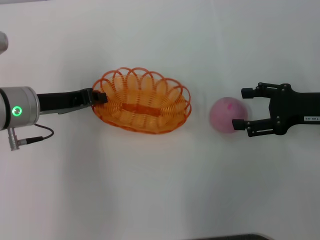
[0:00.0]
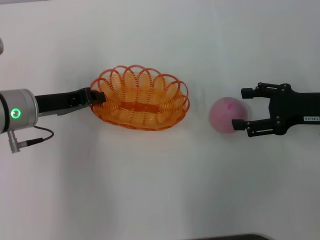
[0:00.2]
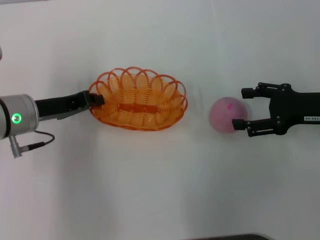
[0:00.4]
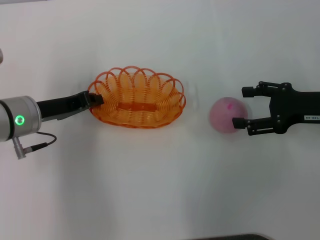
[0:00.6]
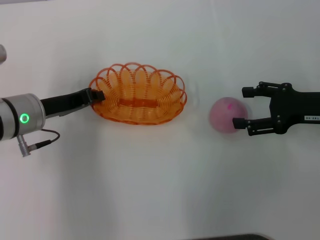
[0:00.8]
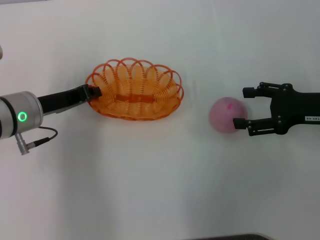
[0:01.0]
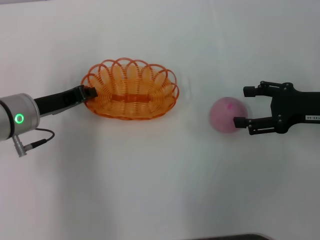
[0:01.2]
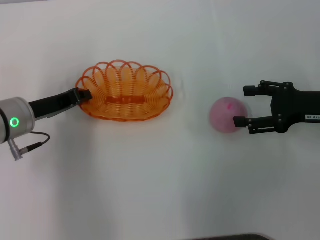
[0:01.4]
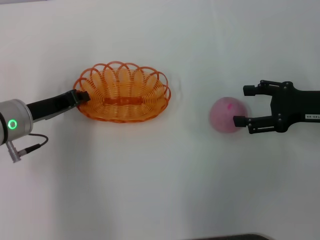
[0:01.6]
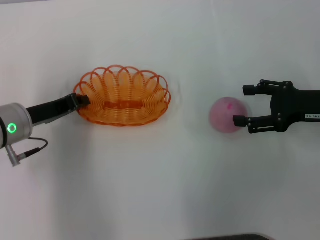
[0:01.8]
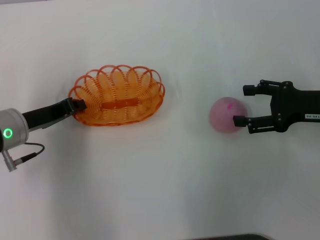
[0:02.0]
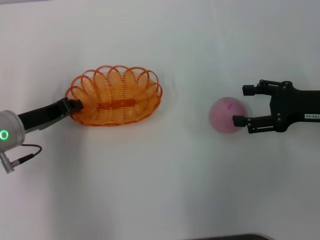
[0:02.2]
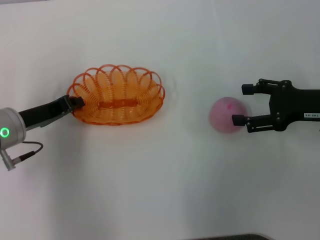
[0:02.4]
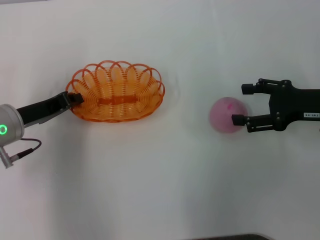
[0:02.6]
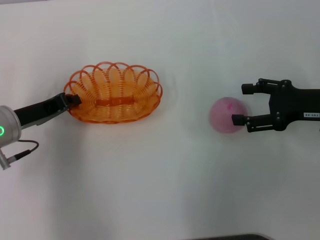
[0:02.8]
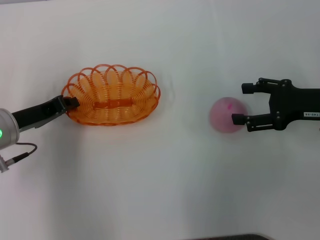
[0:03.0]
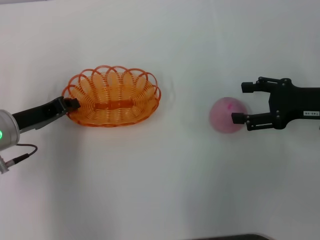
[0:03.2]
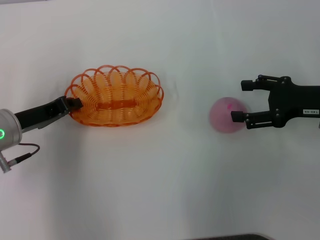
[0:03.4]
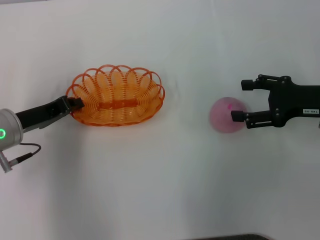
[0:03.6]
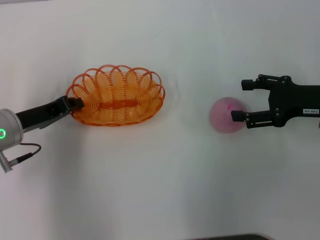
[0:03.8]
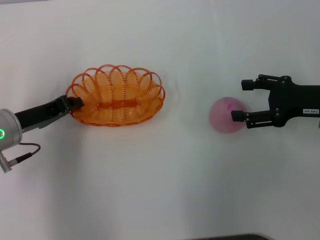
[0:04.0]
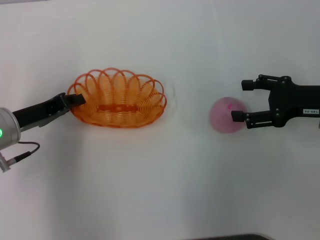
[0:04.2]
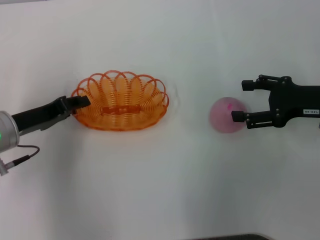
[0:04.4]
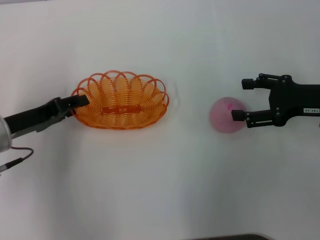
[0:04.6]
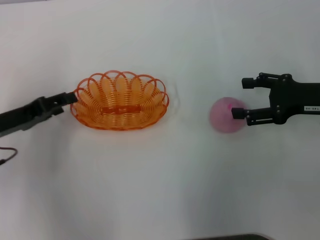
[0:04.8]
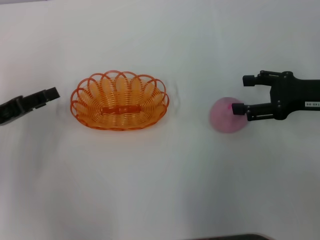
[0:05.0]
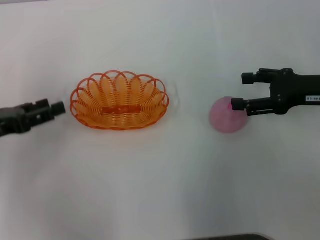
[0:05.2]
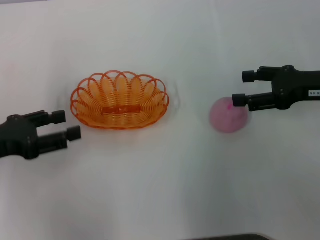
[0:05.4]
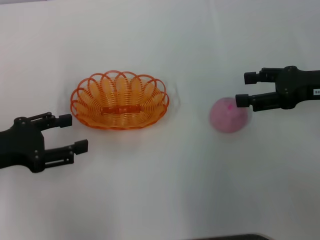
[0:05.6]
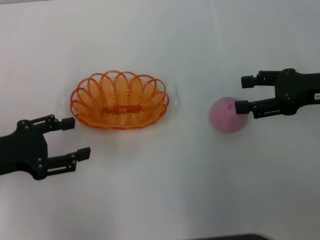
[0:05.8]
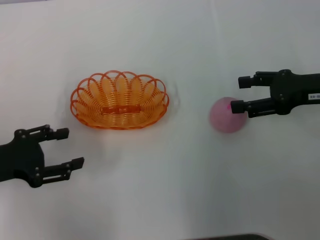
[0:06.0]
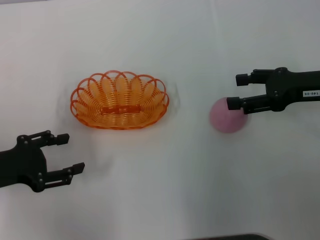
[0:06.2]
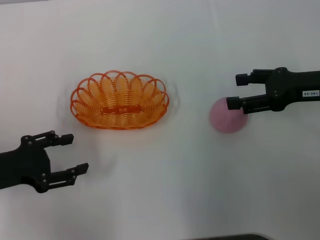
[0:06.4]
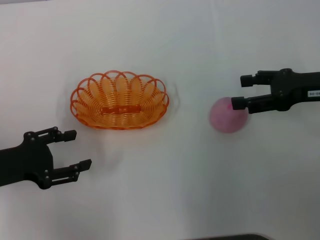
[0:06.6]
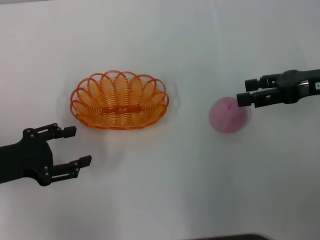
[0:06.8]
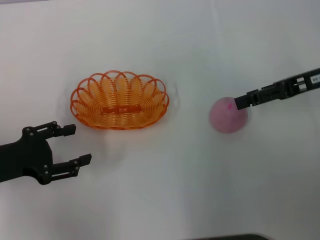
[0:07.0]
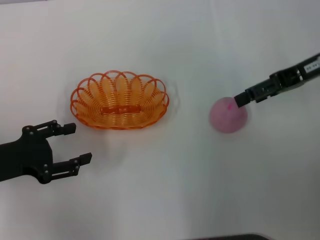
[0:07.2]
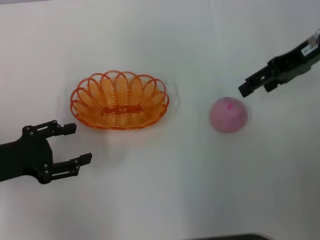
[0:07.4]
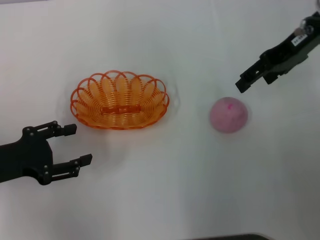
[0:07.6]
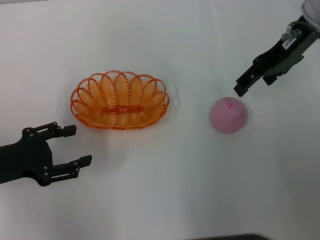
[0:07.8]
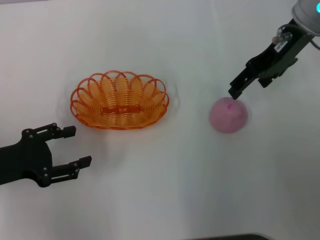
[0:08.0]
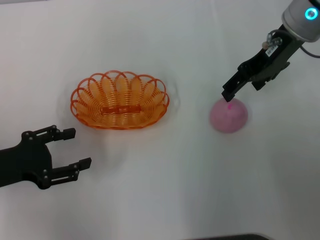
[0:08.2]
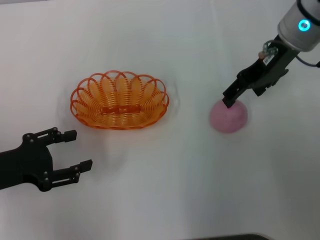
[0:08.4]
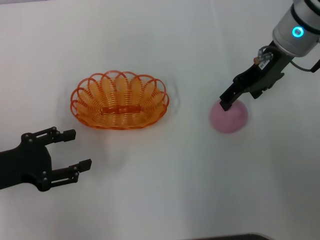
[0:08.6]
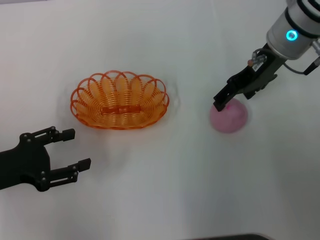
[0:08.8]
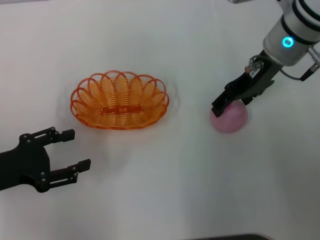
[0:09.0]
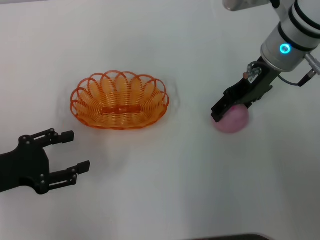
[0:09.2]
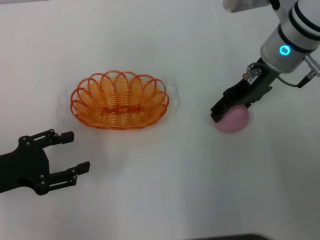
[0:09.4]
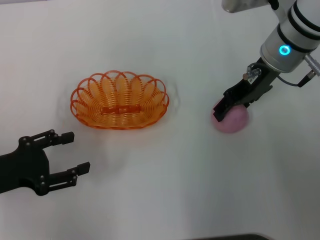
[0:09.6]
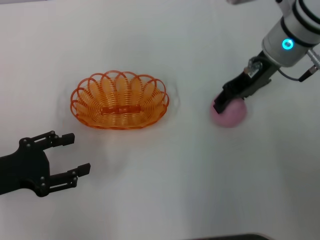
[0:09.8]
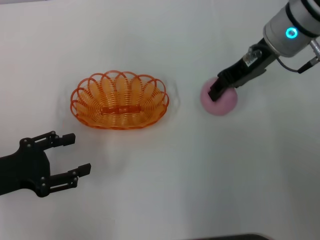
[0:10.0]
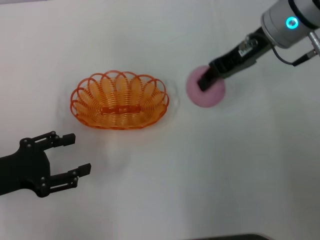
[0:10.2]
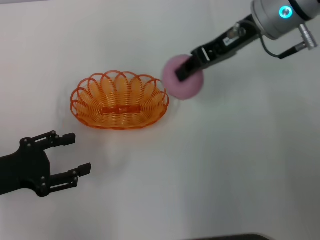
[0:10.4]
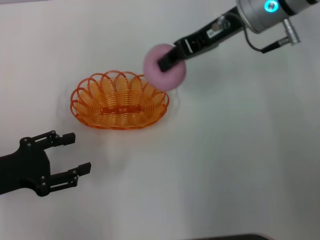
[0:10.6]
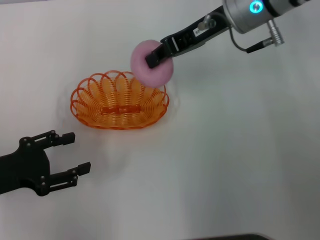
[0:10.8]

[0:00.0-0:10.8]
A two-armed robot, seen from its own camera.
Step, 0.0 to 4.8 s: Place the basket in the center of view with the left gripper.
Step, 5.0 to 10.0 s: Pick up the peach with the right gripper.
0.0 to 4.6 s: The grippers make only small movements.
4.6 to 6.2 s: The left gripper moves backward, approximately 5 cm, and opens.
6.2 to 7.8 s: The right gripper travels upward, forward and to the left by some 15 cm.
7.8 to 9.2 s: The right gripper is displaced downward by approximately 5 cm.
9.2 to 10.8 s: The right gripper travels upward by some 5 cm, and closes its fingers.

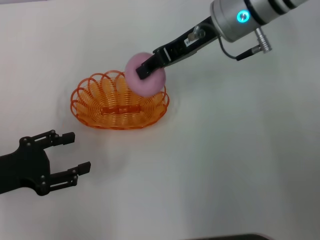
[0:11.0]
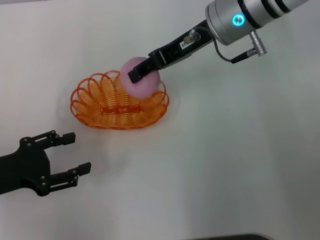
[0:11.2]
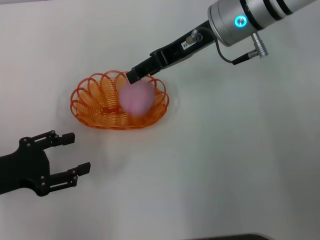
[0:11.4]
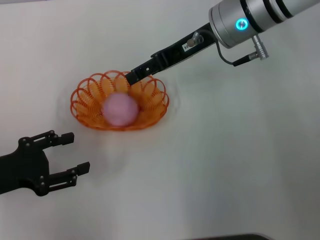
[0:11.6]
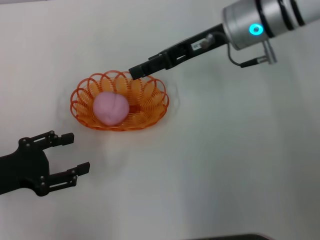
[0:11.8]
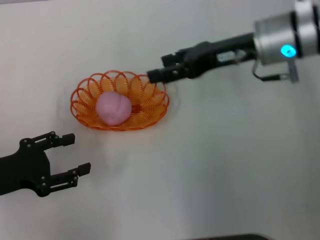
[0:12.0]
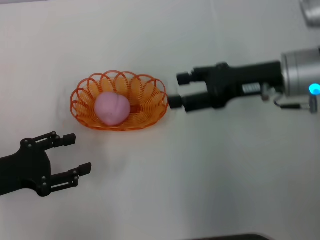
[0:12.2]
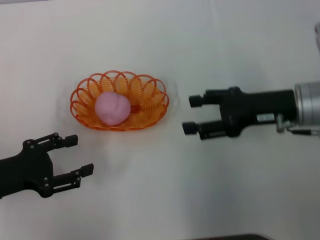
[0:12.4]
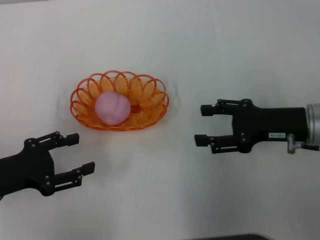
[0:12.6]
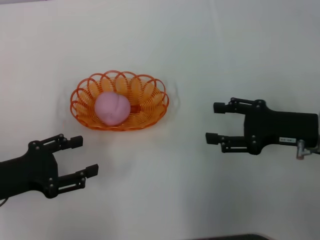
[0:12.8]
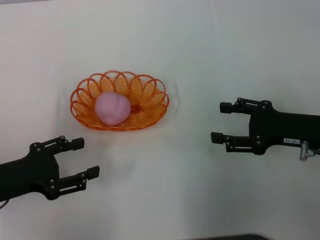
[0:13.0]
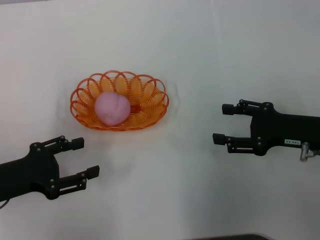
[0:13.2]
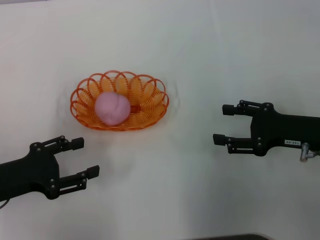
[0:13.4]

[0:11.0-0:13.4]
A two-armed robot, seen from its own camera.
Step, 11.0 to 12.0 s: Place the peach into the basket with the right gripper.
11.0 to 12.2 s: The right gripper is displaced to the right, backward and downward by about 15 cm, and opens up.
12.2 to 13.4 s: The right gripper is displaced backward, downward and to the right by roughly 10 cm.

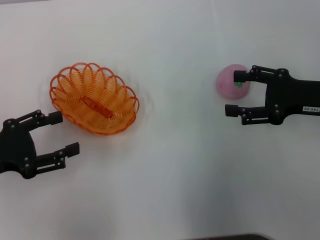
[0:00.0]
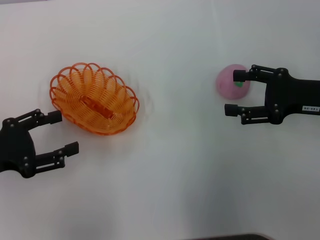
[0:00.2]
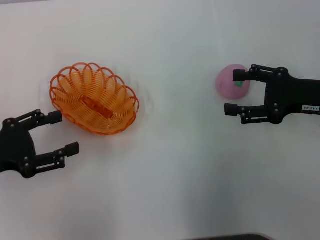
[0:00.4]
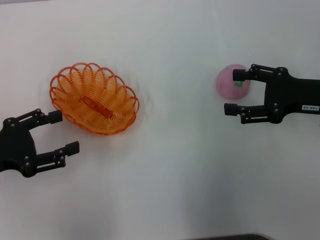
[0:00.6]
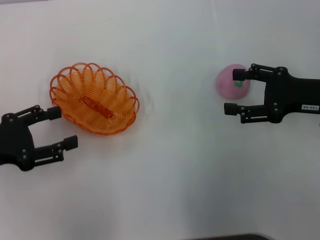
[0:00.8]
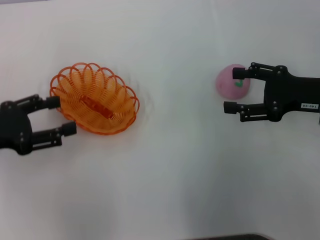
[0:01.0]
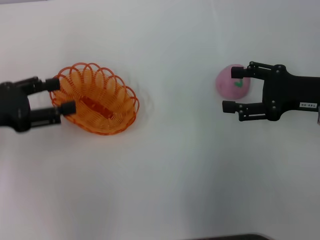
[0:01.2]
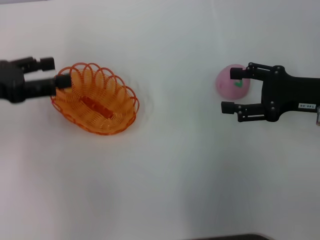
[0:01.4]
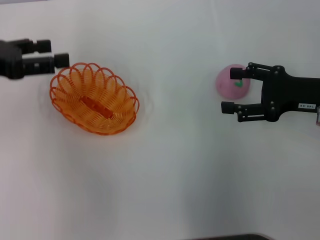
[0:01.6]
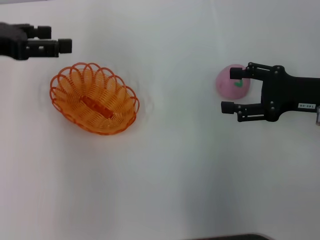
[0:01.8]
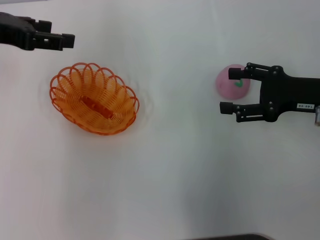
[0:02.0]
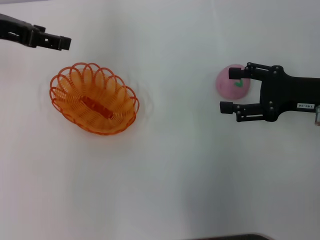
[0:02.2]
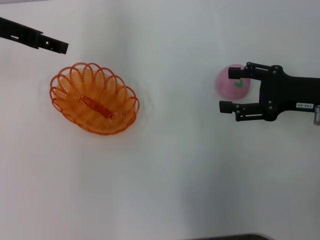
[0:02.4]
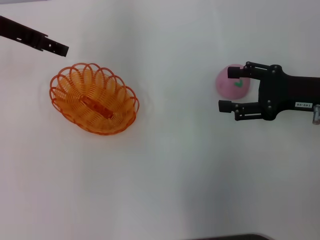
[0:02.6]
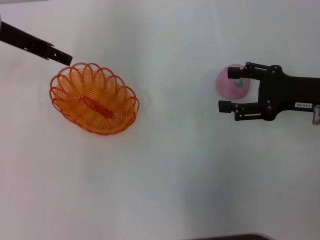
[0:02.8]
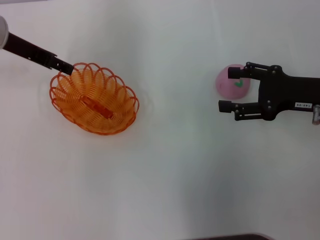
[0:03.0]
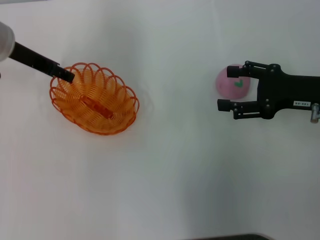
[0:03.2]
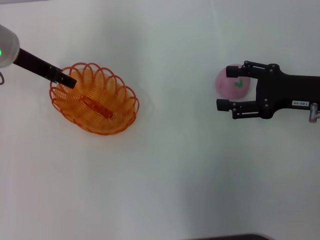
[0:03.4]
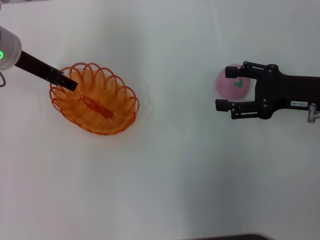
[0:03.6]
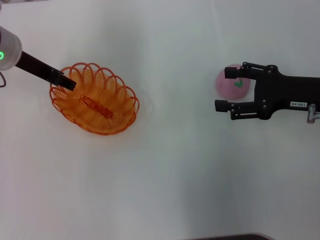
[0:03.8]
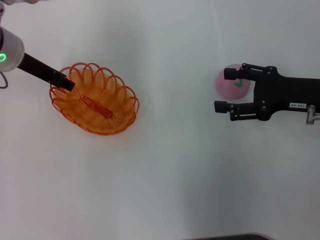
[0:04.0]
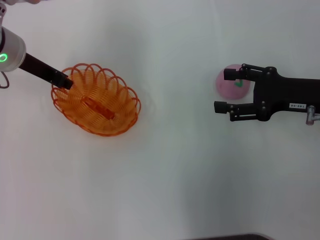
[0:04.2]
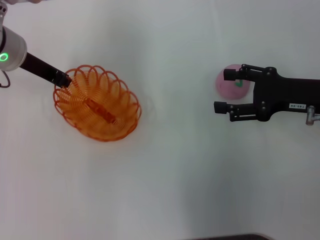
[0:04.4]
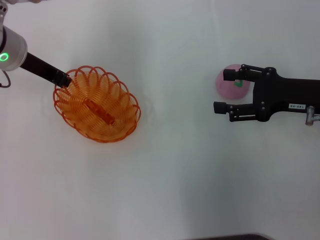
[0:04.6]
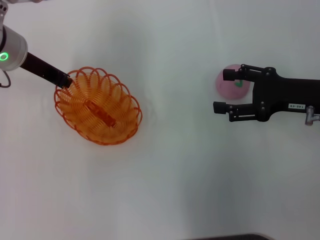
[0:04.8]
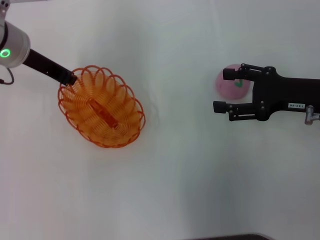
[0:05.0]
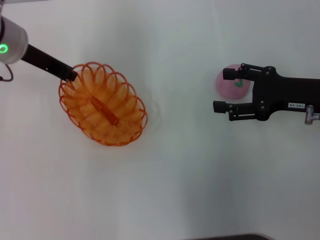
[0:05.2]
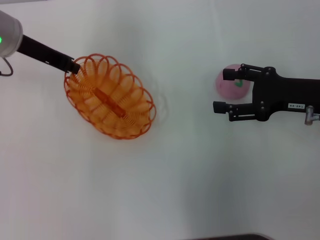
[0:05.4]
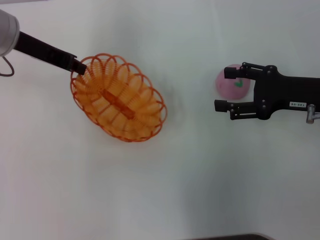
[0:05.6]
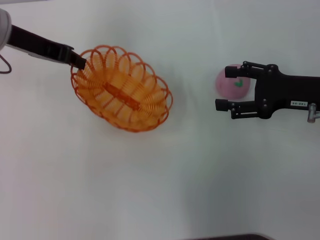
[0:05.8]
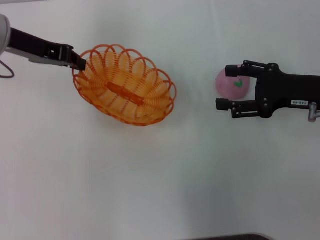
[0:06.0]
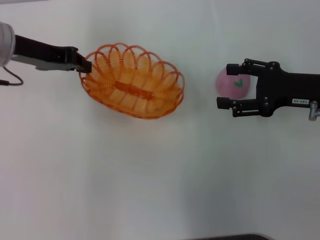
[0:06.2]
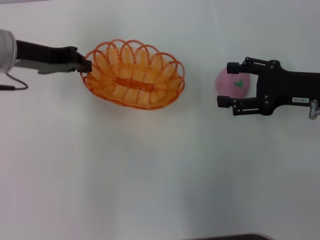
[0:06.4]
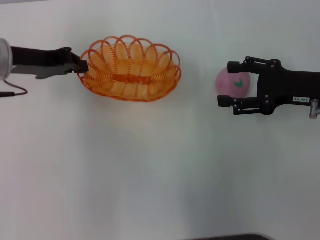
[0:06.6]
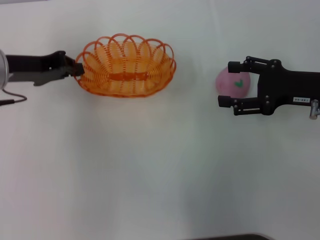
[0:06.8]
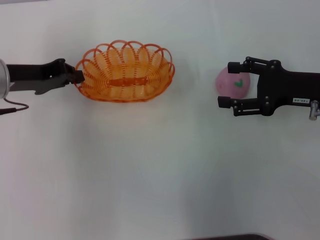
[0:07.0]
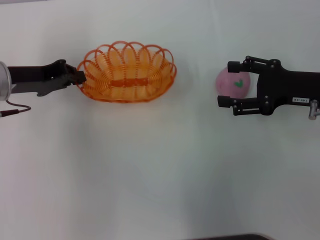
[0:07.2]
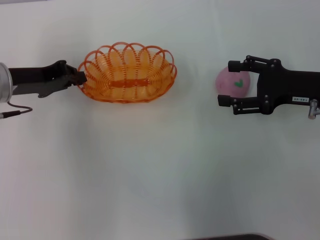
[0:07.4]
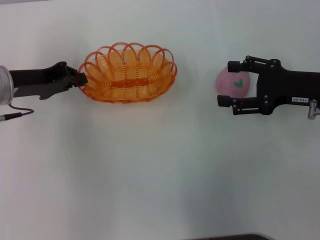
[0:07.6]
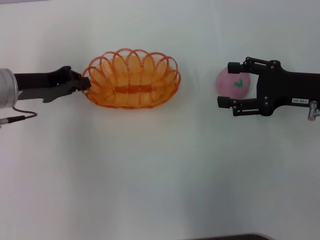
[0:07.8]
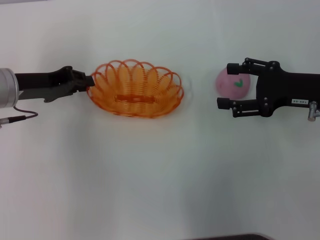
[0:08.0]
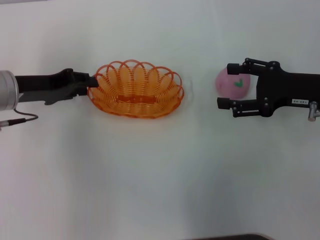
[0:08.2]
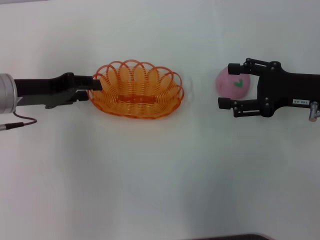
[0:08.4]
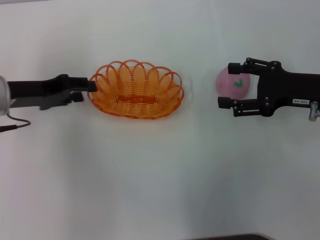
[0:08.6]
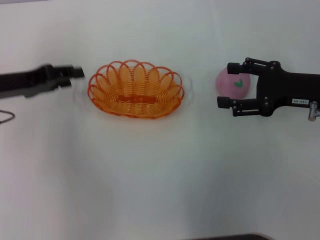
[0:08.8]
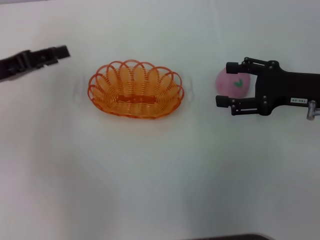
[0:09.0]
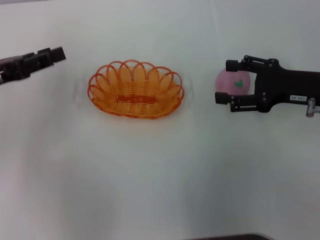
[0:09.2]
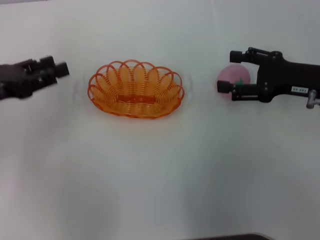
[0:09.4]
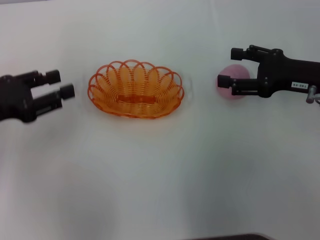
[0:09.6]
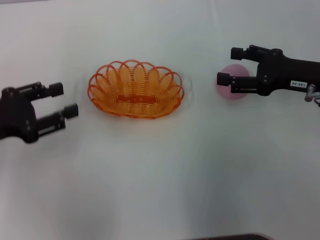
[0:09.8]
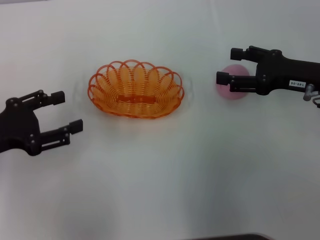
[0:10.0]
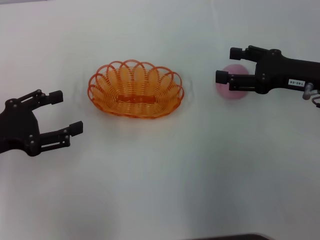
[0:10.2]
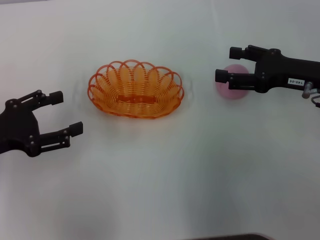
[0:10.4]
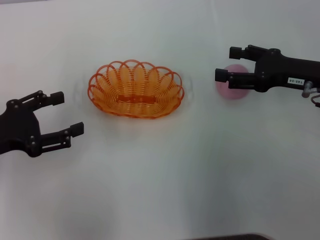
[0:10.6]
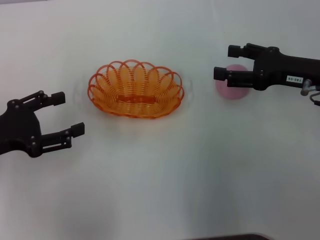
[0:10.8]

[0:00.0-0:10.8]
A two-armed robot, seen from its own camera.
Step, 0.0 to 5.6 s: Pick up the basket with the left gripper.
Step, 6.0 to 9.4 s: Place the basket in the center of view with the left gripper.
0.0 to 1.6 s: The left gripper is displaced forward and upward by approximately 15 cm.
1.6 to 3.0 s: The left gripper shifts some 10 cm forward and to the right.
3.0 to 4.6 s: The left gripper closes its fingers.
6.2 to 7.8 s: The left gripper moves downward, roughly 5 cm.
7.8 to 9.2 s: The left gripper goes about 5 cm to the left, and opens.
9.2 to 10.8 s: The left gripper is displaced backward by about 5 cm, and opens its fingers.
